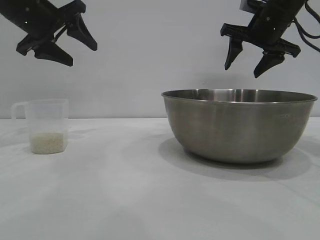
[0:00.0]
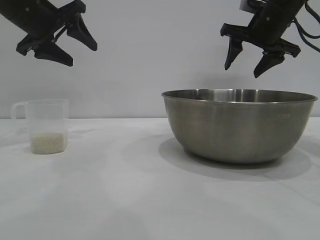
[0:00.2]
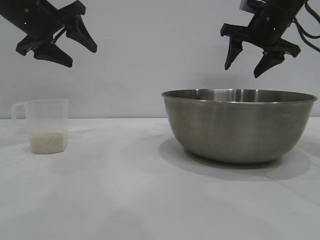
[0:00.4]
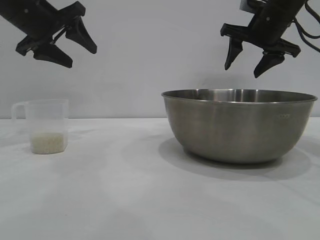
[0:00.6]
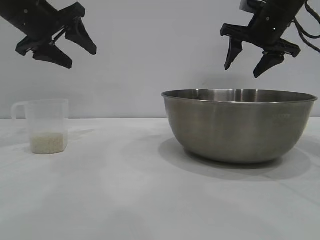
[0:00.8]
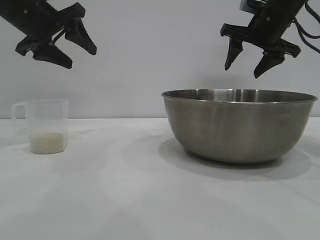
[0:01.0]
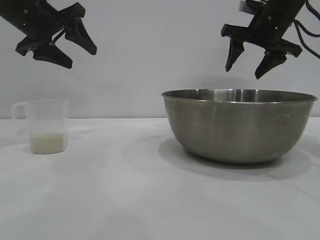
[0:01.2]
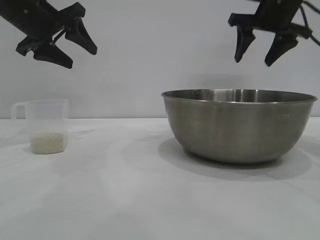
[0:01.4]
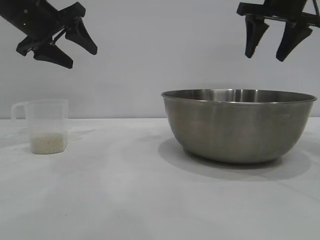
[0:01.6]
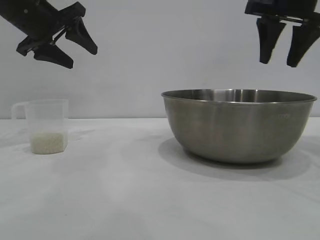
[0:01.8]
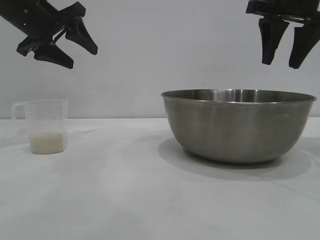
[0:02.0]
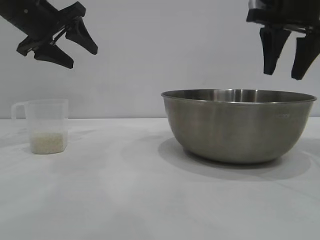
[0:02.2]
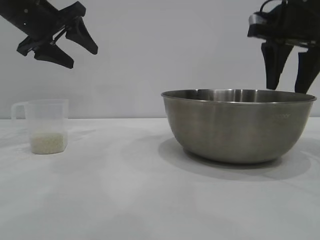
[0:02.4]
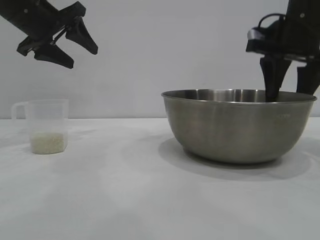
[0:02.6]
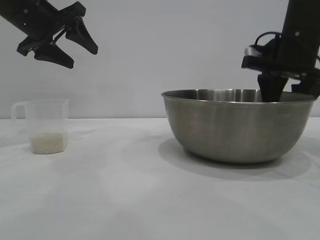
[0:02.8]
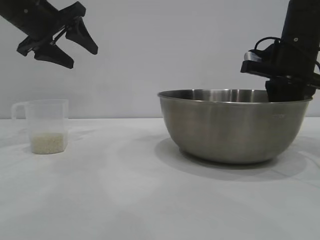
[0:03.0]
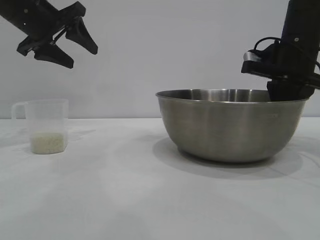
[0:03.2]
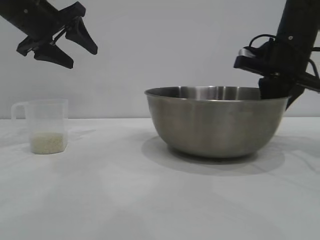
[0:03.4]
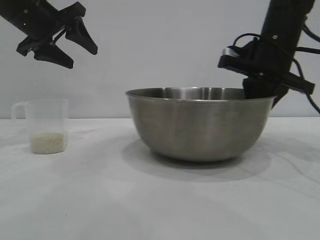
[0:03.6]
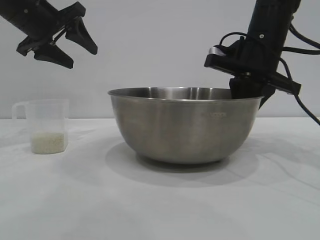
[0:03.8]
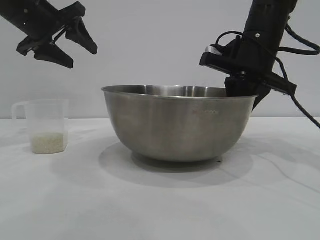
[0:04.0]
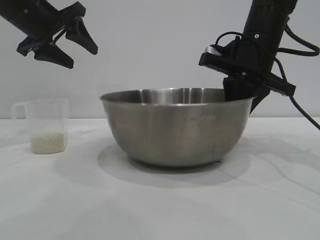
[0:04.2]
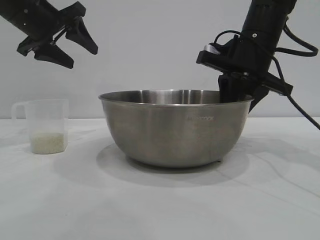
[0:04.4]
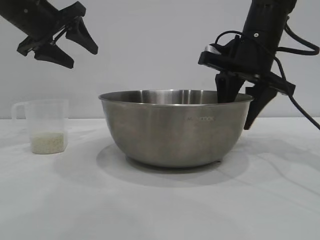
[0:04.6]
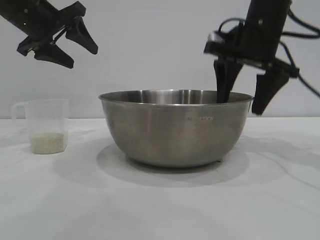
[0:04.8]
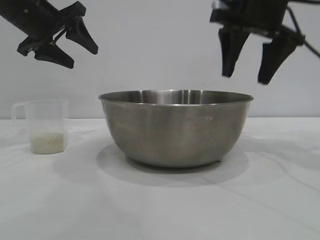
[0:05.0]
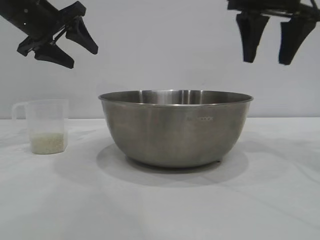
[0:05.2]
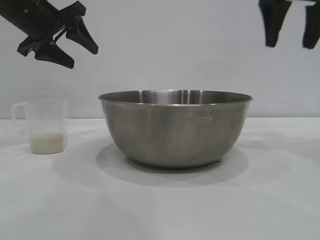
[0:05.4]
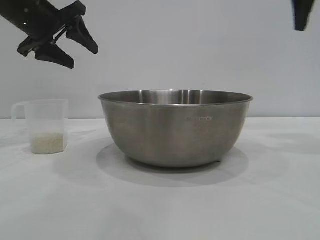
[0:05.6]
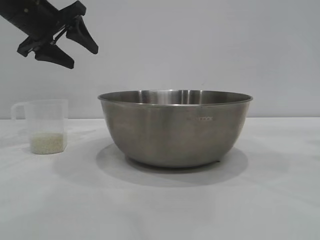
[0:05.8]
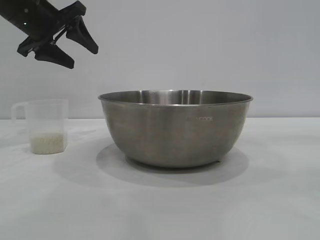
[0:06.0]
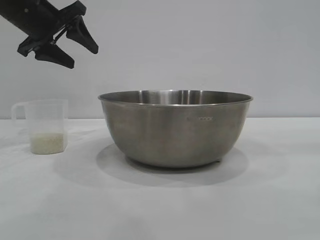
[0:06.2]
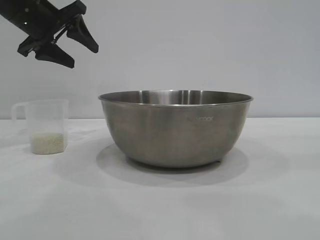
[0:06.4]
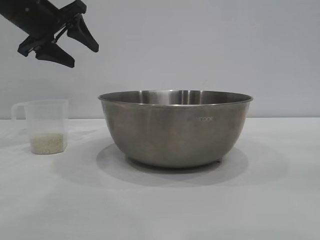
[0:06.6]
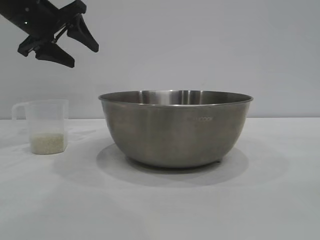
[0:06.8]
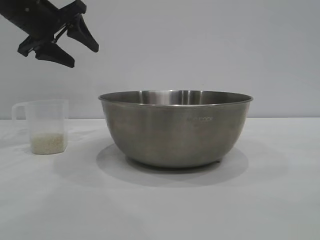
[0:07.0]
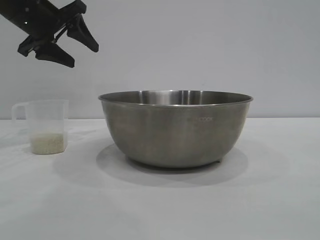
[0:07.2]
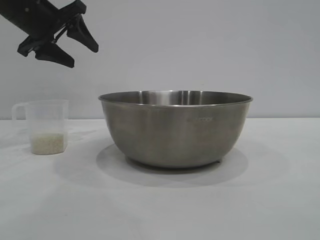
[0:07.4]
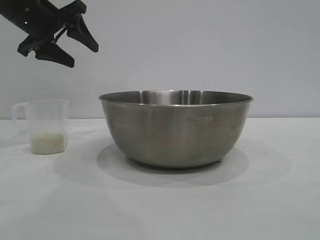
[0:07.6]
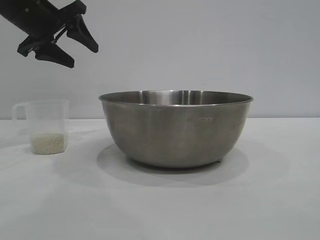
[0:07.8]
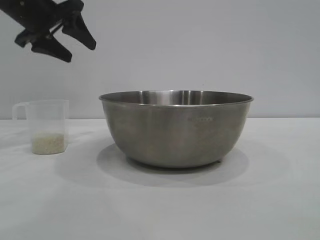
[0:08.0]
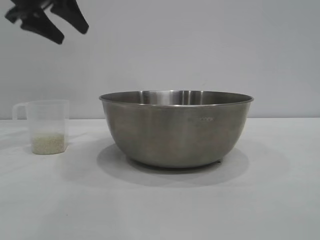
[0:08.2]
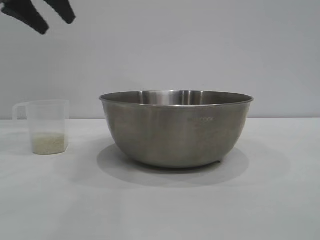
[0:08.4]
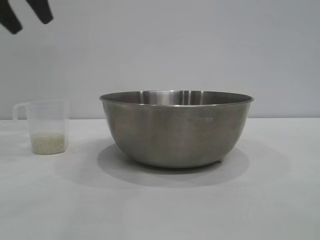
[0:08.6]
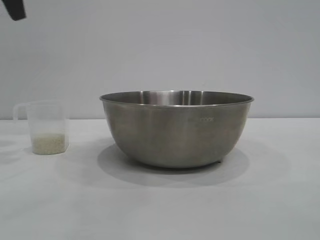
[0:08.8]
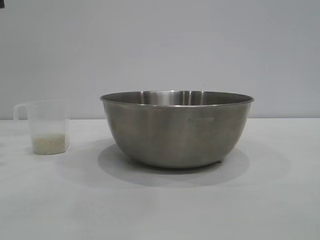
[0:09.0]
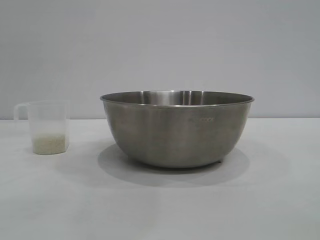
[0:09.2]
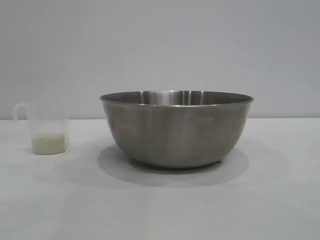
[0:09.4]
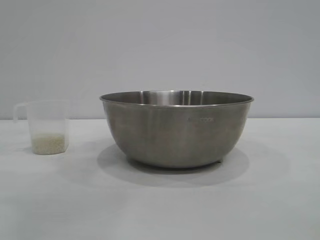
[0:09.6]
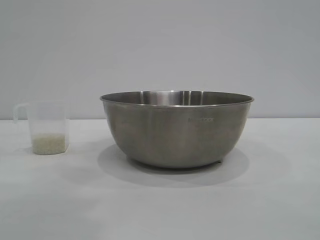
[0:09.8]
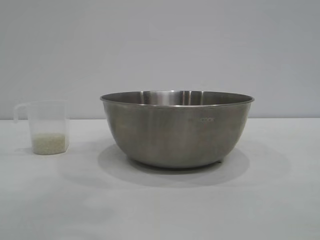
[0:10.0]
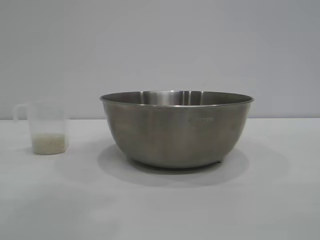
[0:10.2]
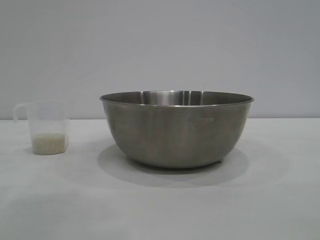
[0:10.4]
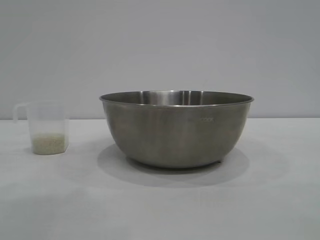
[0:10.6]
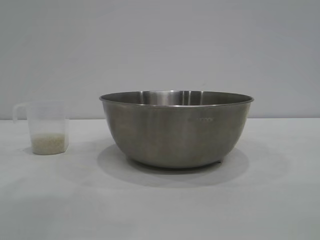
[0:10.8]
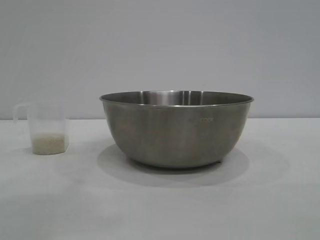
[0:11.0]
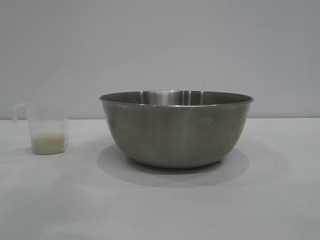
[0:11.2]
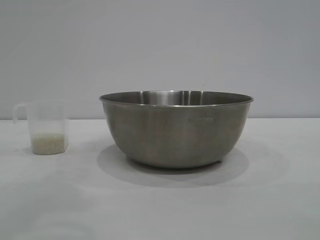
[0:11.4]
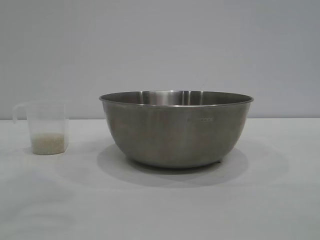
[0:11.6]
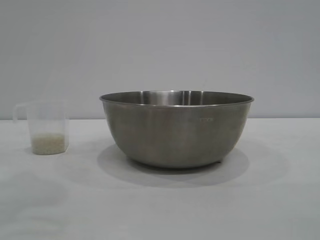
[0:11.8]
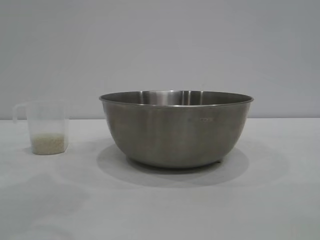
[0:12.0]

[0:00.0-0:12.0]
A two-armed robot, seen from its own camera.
Task of the whole recording: the right gripper grasp the rice container and place it in the center of the table, the left gripper grasp the rice scoop and pour the rice into the rice container.
Step, 0:00.0 to 0:04.6: Move the bowl to the center of view with the right gripper.

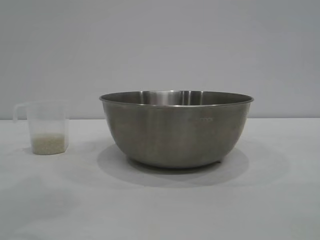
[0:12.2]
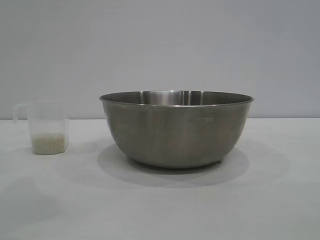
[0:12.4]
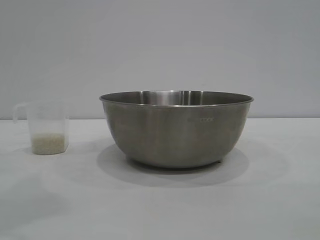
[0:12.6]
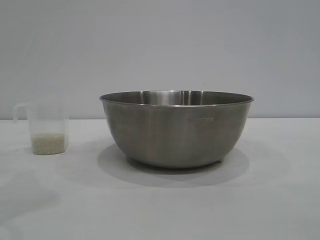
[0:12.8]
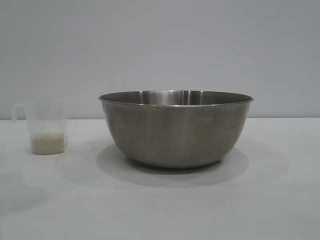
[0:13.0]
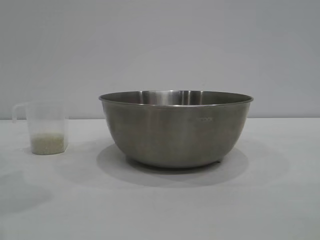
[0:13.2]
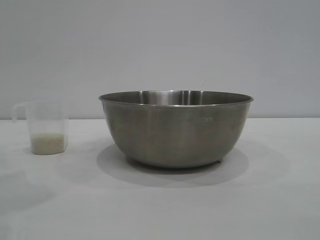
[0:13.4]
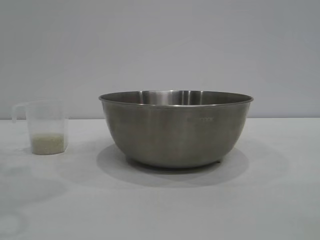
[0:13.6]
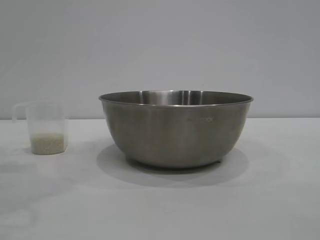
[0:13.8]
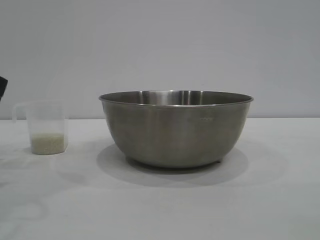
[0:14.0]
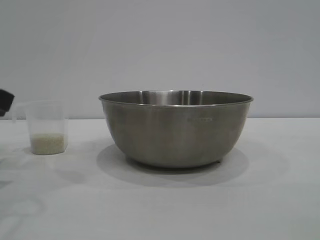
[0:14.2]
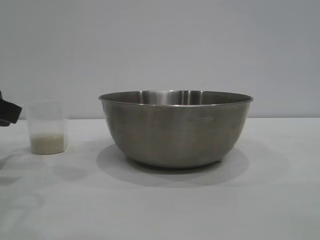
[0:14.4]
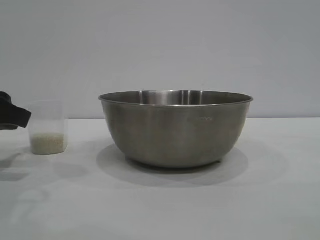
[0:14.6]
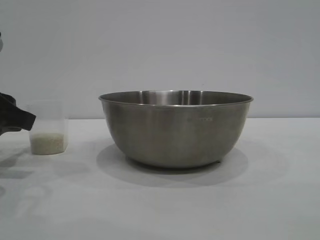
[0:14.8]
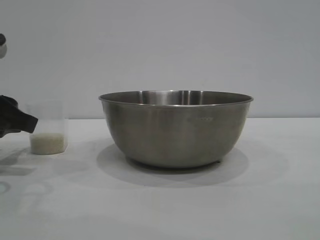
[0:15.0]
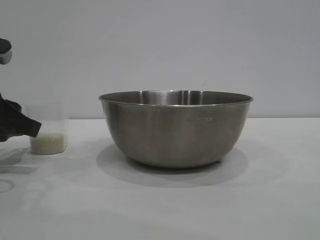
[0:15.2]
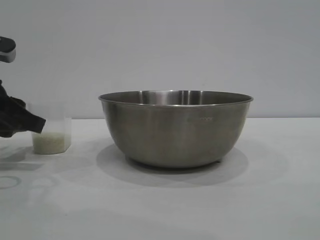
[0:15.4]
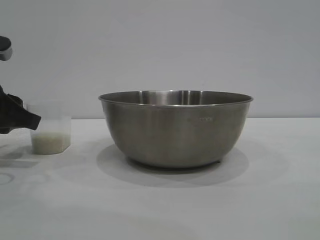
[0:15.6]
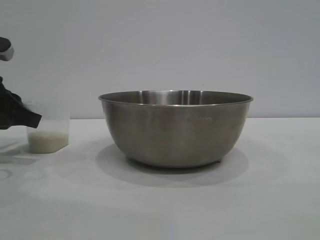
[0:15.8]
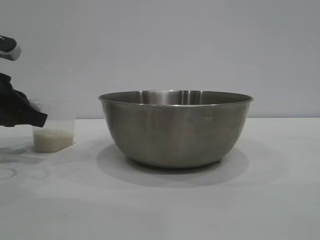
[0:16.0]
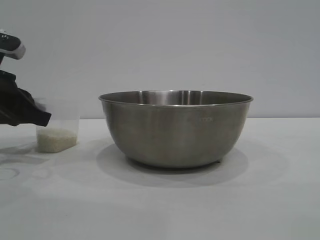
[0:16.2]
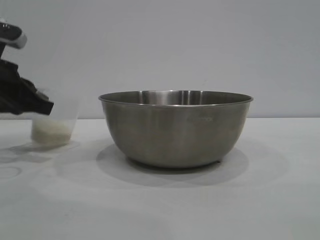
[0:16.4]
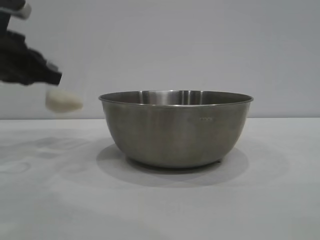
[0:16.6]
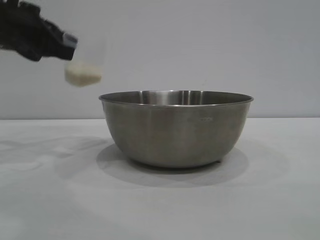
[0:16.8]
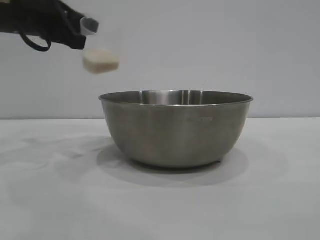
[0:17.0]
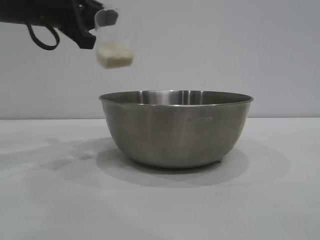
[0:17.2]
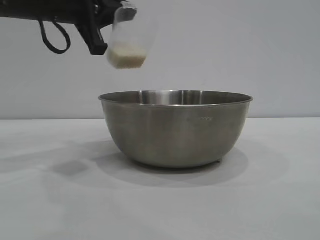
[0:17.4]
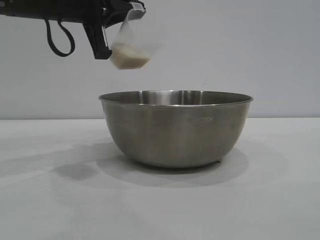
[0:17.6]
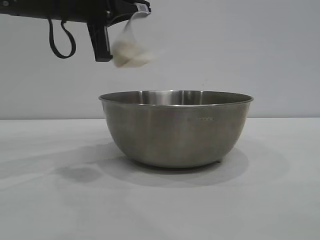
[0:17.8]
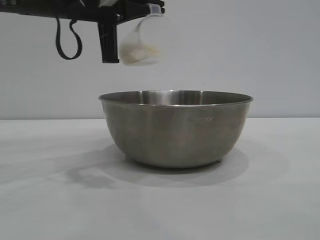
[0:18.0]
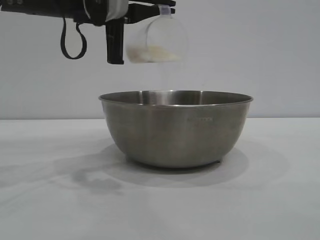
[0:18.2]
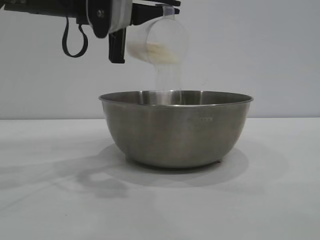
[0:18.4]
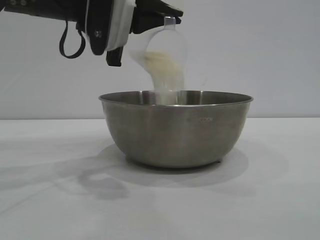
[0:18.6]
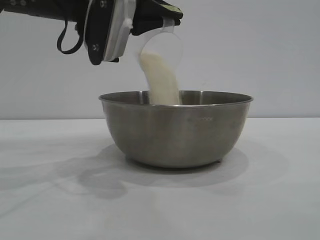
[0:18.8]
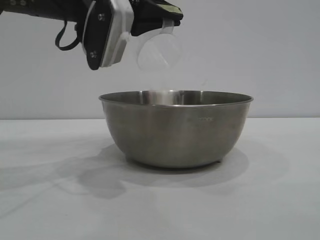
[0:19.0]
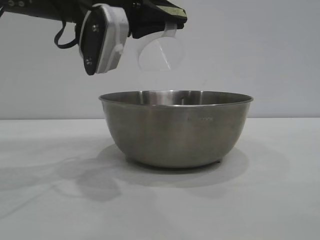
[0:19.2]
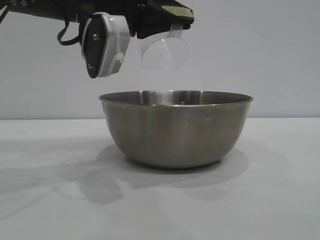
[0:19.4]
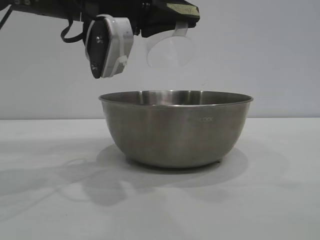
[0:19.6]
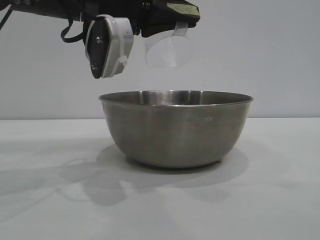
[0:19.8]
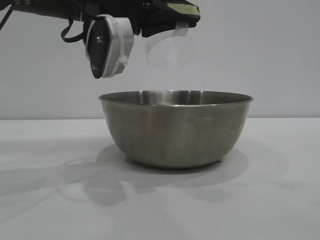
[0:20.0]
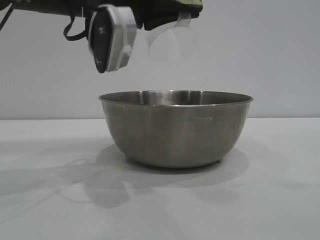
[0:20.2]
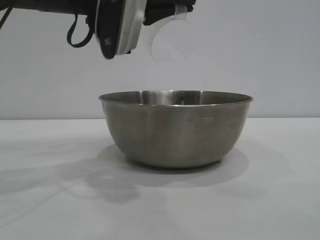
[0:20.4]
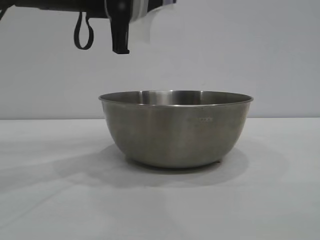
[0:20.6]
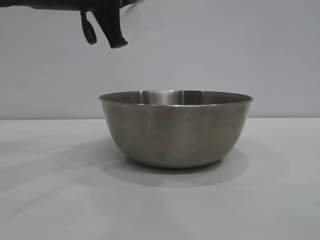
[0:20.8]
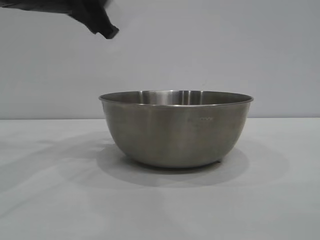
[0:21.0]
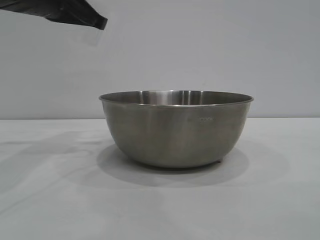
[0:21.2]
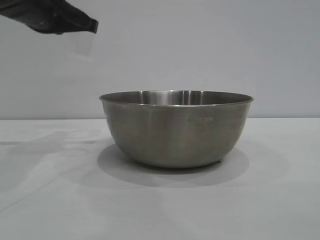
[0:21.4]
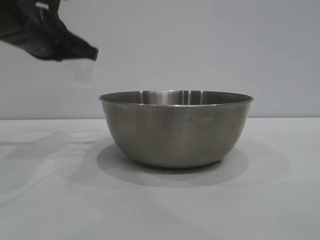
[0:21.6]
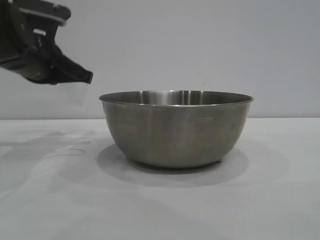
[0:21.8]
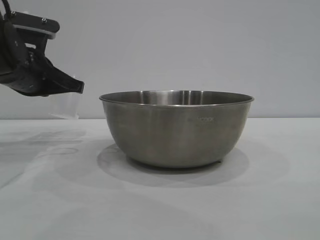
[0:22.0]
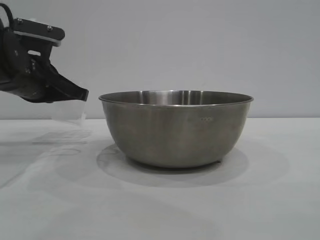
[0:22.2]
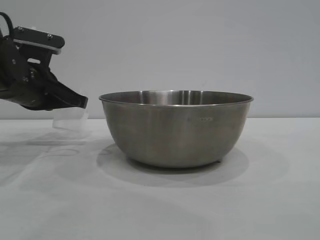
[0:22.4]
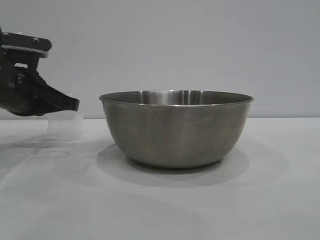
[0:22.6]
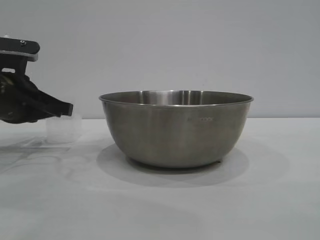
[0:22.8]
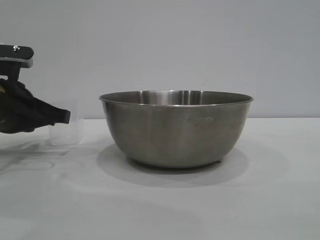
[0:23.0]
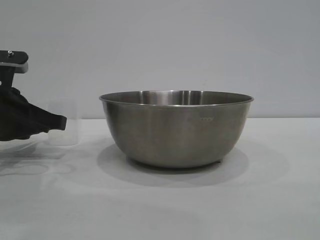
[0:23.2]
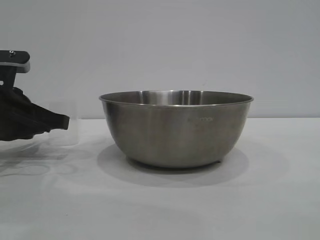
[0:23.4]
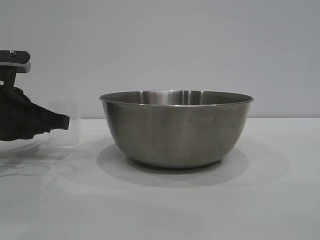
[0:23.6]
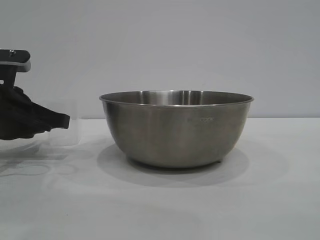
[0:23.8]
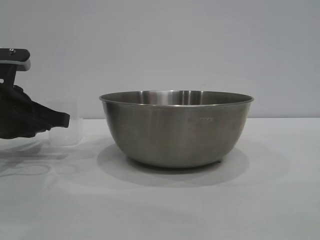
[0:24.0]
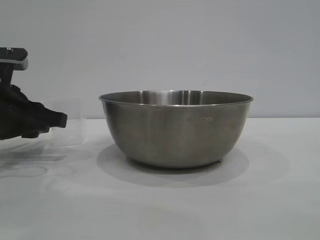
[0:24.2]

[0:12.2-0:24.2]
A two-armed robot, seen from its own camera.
Task of the whole recording: the right gripper grasp the rice container and place it in the center of the table, the left gripper grasp the rice scoop and pour the rice into the rice container.
Step, 0:12.2 to 0:16.6: Pick up the cup with rice in it with the left gripper.
Step, 0:16.8 to 0:20.6: Pour the rice from the cup into the bowl with the left gripper.
